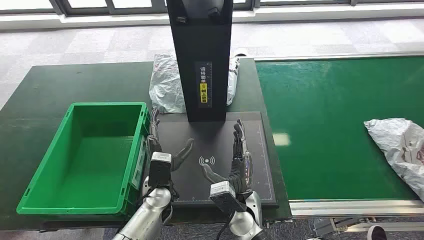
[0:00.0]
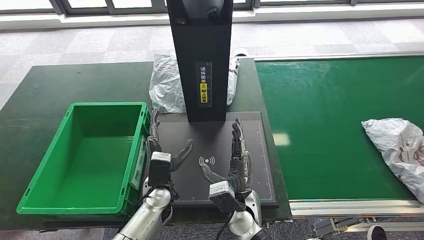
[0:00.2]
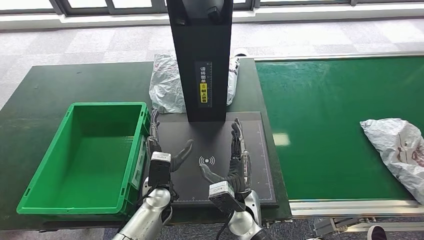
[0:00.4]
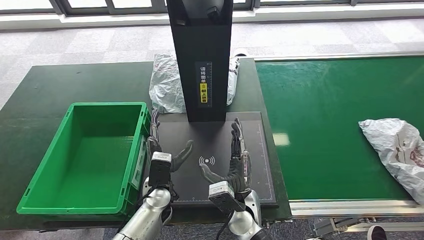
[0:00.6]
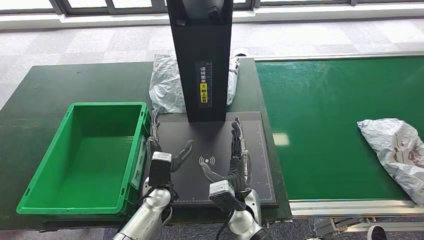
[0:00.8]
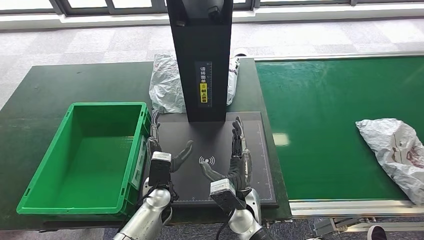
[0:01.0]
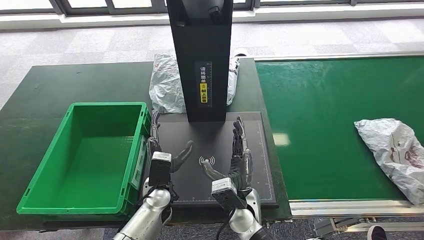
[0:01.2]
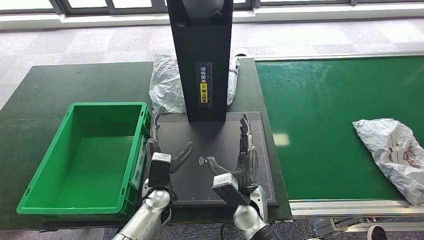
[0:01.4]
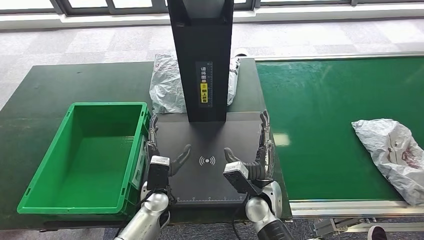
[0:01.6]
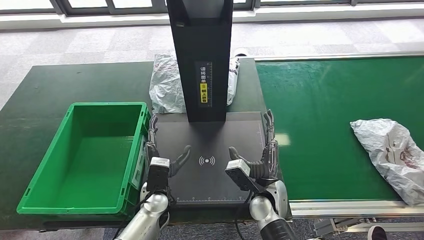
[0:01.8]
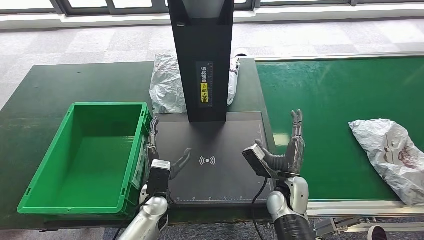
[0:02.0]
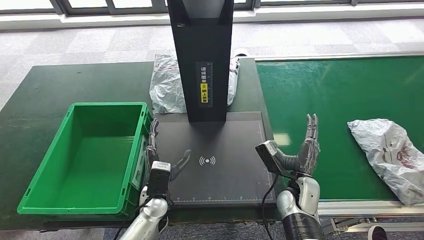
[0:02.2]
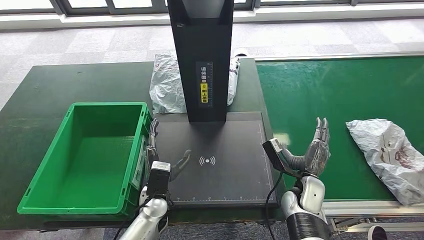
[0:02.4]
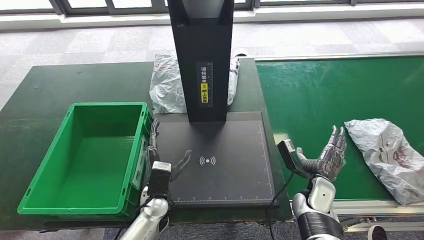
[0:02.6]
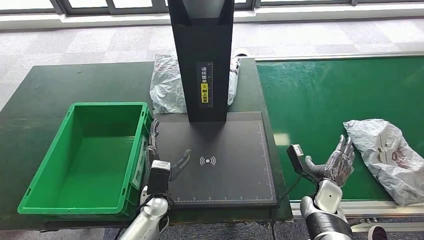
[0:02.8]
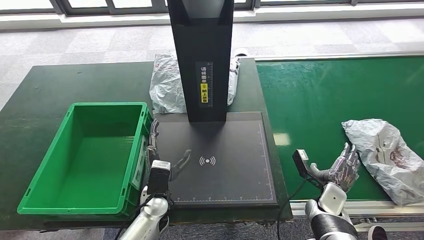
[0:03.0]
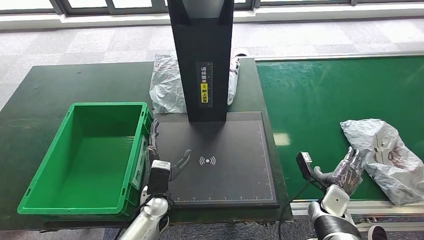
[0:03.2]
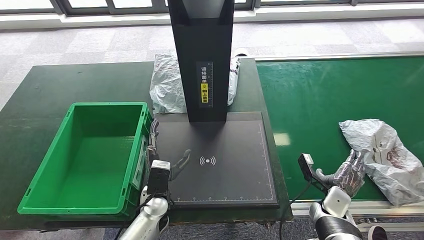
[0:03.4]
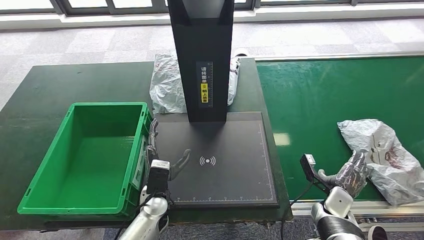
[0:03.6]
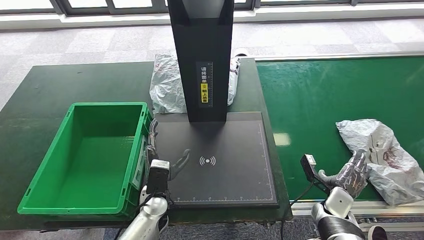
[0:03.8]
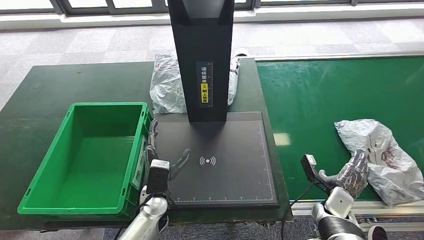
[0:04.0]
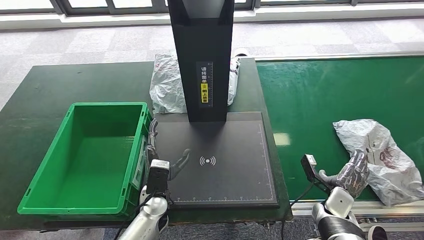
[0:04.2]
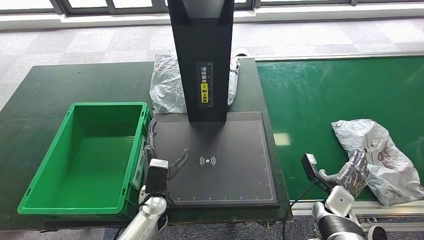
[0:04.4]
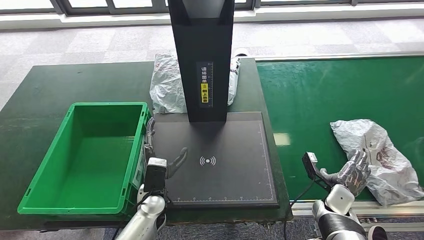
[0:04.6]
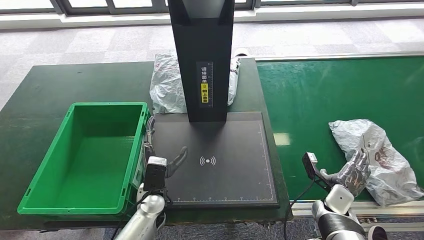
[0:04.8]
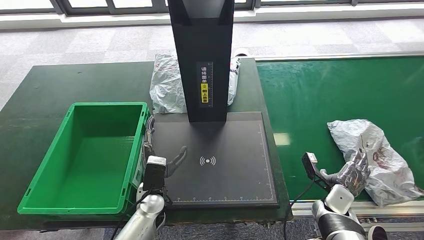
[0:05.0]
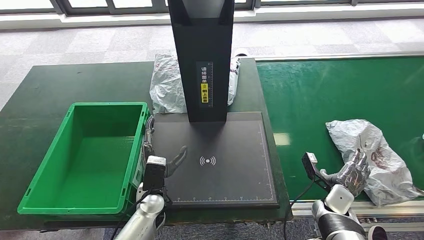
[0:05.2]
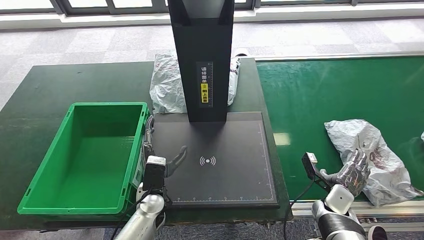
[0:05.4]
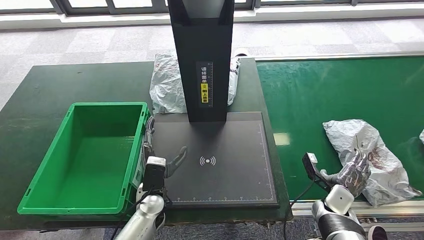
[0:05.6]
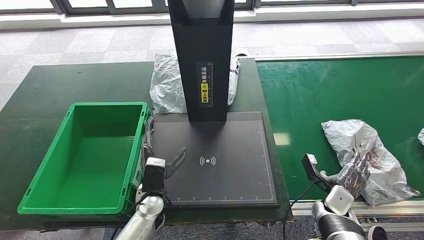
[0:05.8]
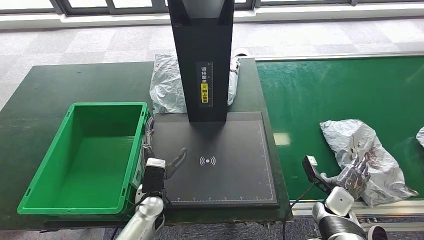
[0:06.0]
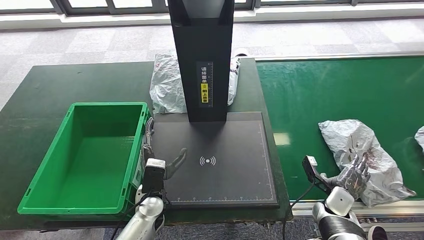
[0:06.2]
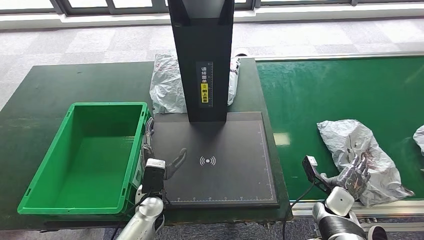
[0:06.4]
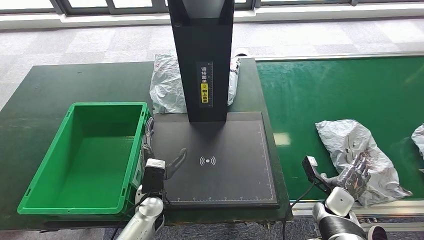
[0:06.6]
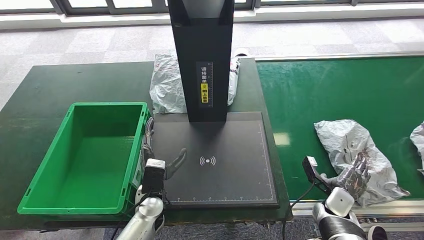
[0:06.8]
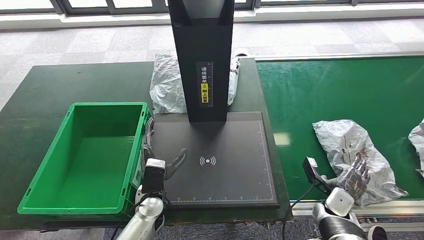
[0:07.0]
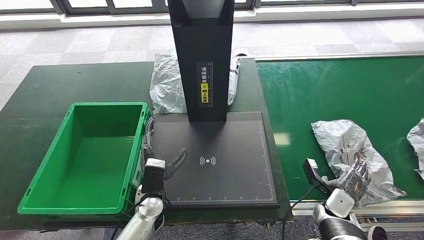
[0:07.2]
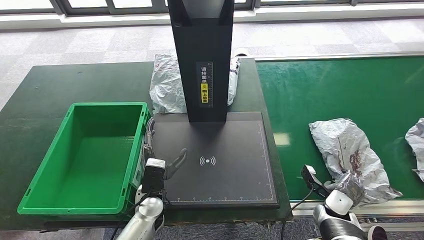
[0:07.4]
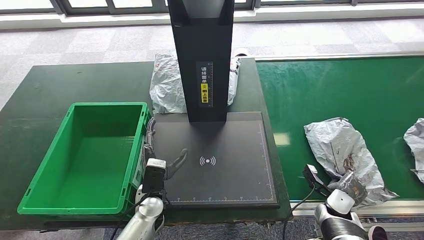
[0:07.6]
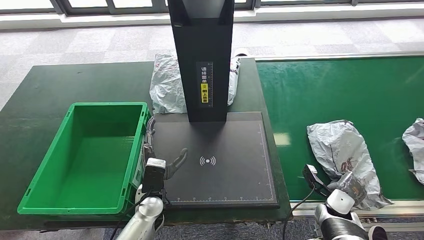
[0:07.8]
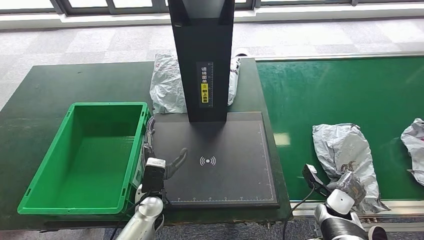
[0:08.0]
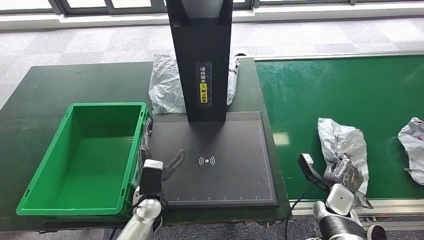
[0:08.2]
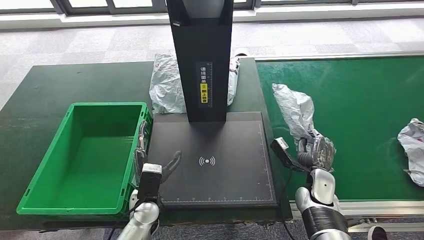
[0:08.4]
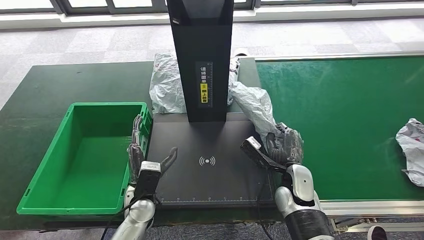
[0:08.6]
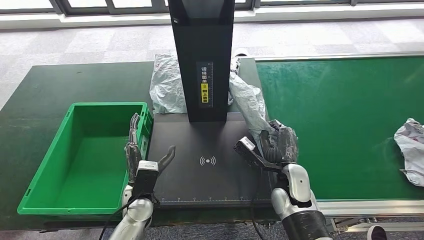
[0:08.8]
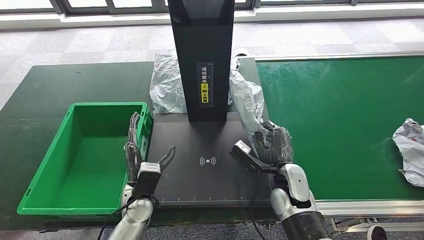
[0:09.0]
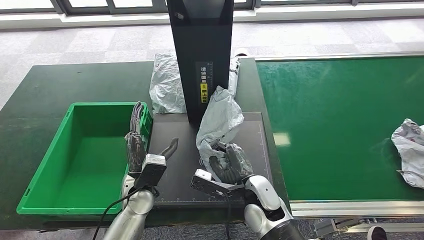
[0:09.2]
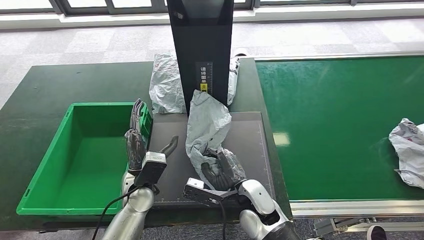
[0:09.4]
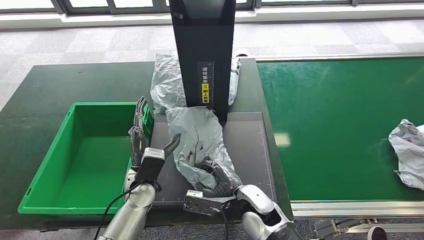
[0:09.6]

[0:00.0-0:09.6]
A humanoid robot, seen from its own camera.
Step, 0:00.0 to 0:08.2: Take the parcel off the conveyor belt.
0:01.6 to 0:03.2: The right hand travels to the right by some 20 cm.
0:03.2 to 0:04.8: The hands move only a little.
0:04.8 to 0:06.4: Both hands stay put.
0:06.4 to 0:08.0: There are only small adjustments of the hands.

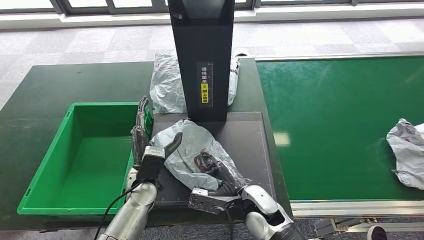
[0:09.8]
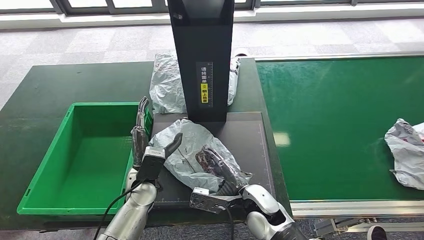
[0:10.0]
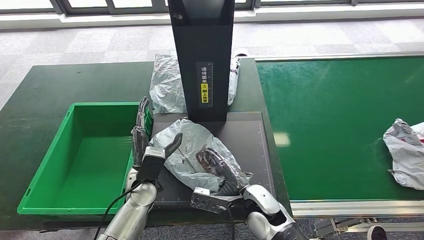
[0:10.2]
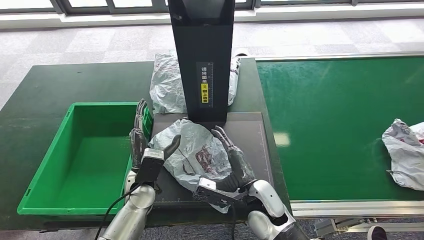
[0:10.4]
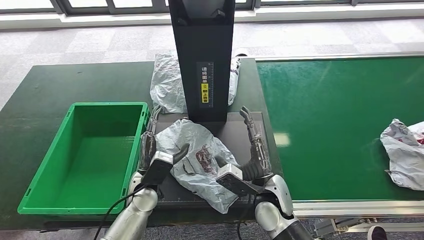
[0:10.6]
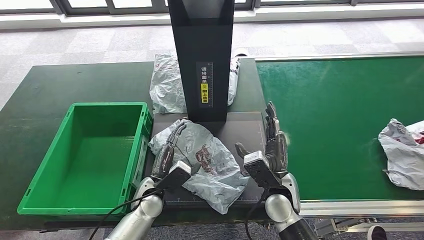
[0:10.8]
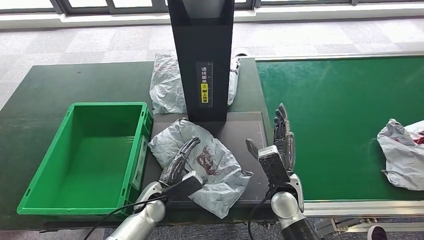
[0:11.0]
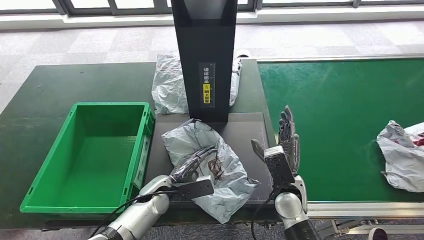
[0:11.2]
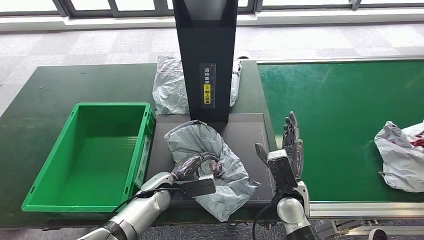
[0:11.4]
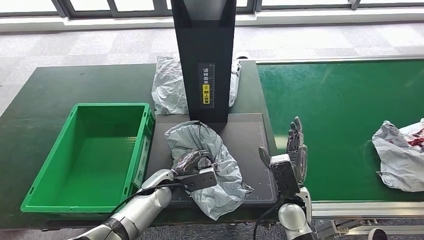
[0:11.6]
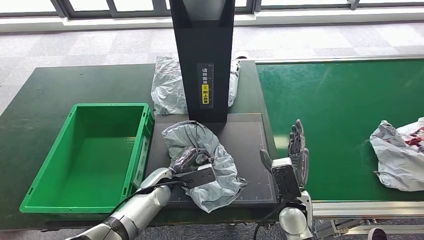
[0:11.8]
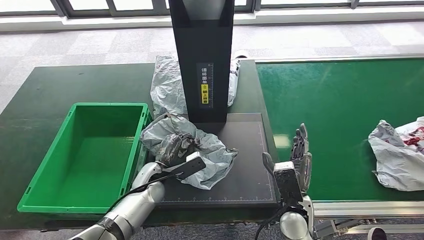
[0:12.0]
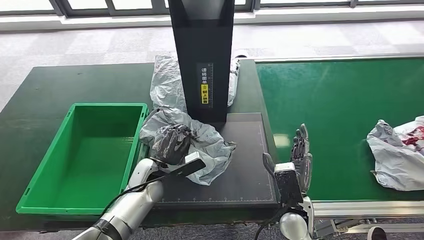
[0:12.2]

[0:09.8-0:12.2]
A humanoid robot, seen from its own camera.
Step, 0:11.4 to 0:12.0: Pick up the parcel from the inbound machine.
0:09.8 to 0:11.0: The right hand travels to the right by some 5 cm, while the left hand shifts approximately 5 cm downward.
